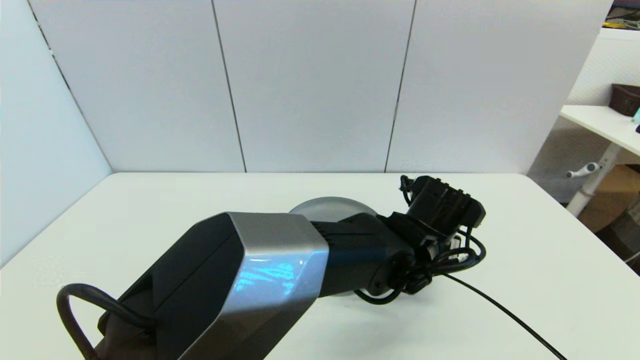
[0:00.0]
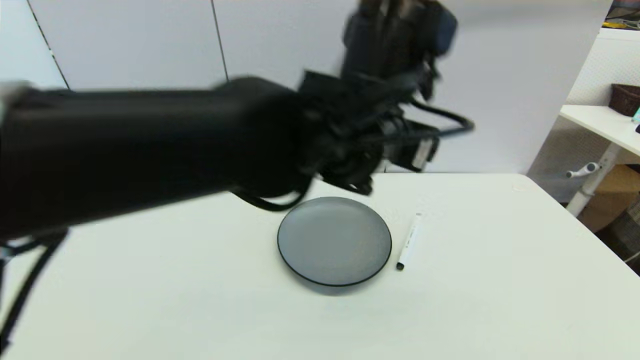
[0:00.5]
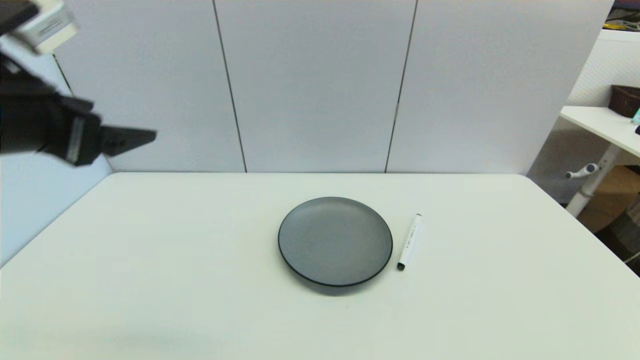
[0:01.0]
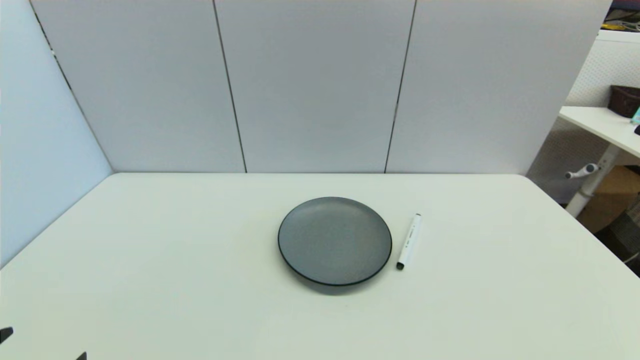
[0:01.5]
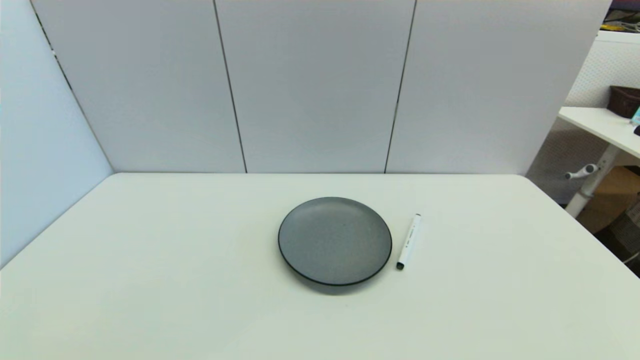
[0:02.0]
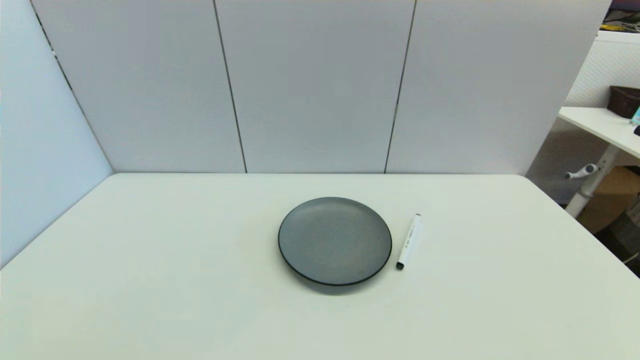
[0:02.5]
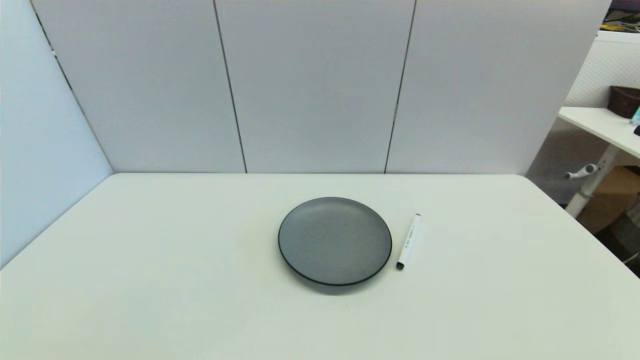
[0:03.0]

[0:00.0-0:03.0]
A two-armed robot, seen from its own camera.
Task of the whole recording: put the black marker in the designated position.
0:00.0 to 0:01.5: The left gripper is displaced to the left and backward by roughly 50 cm.
